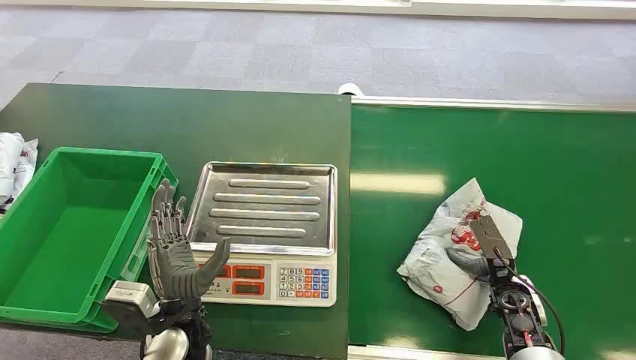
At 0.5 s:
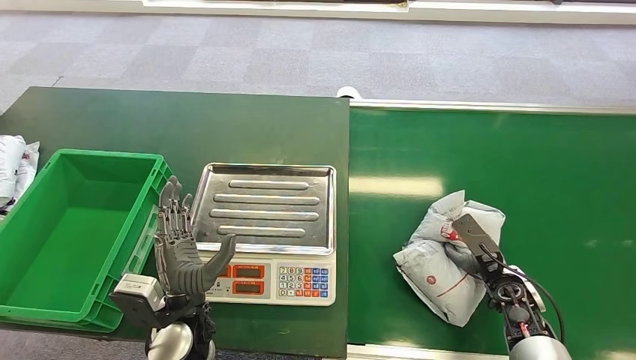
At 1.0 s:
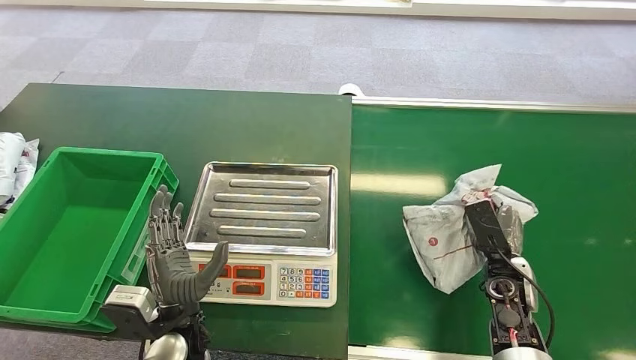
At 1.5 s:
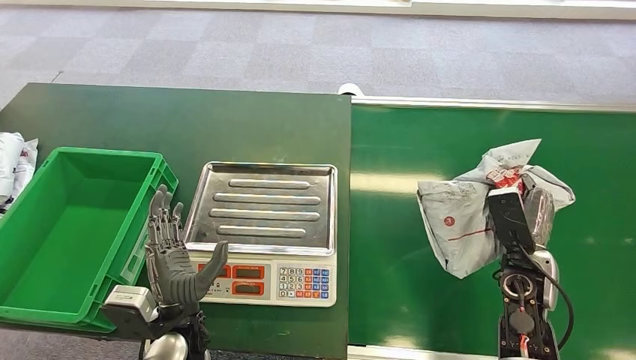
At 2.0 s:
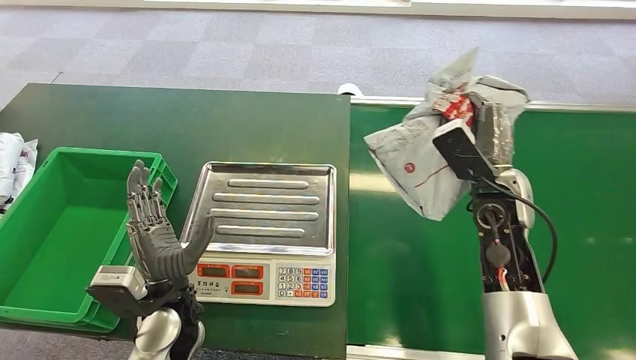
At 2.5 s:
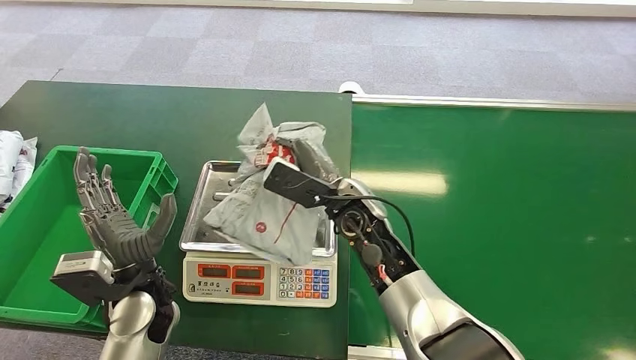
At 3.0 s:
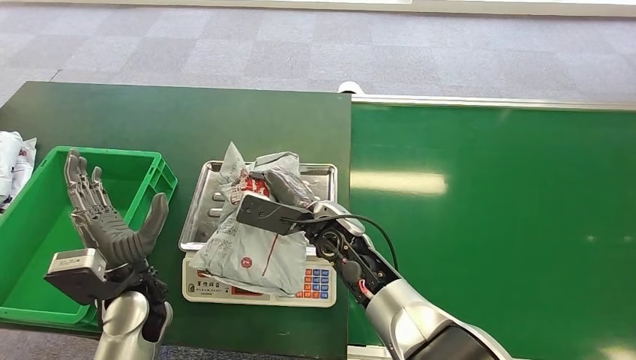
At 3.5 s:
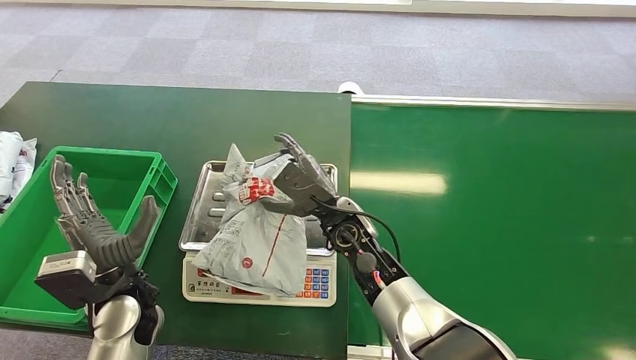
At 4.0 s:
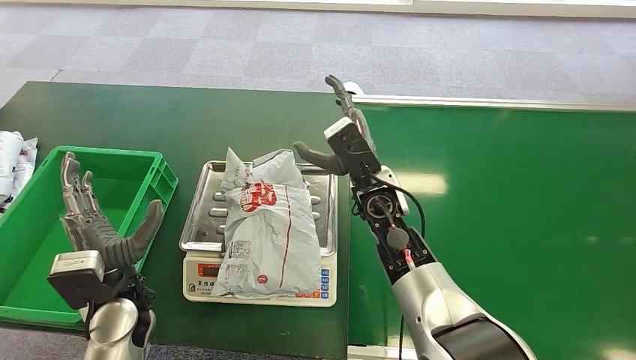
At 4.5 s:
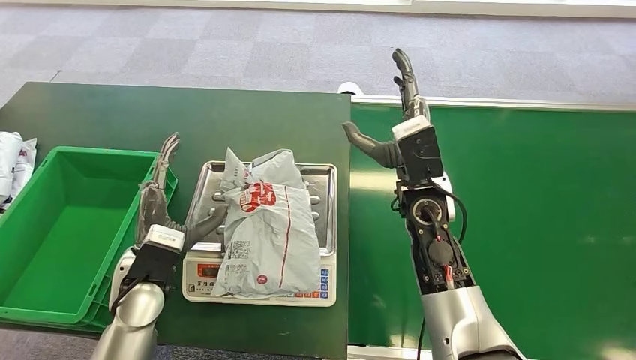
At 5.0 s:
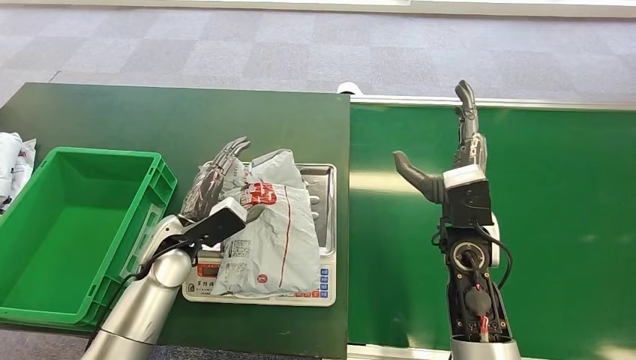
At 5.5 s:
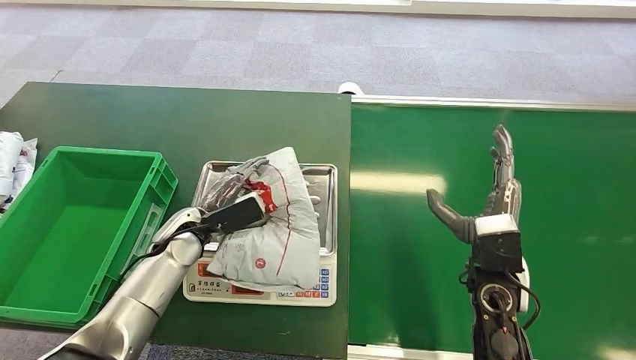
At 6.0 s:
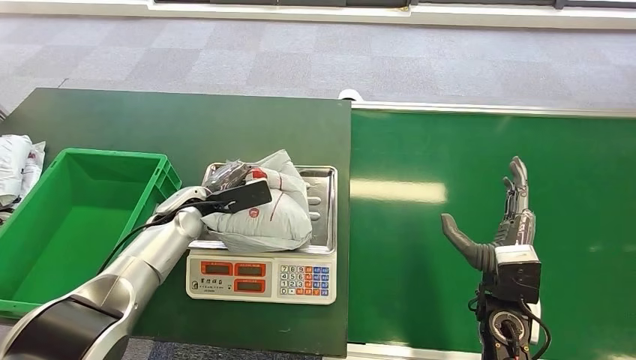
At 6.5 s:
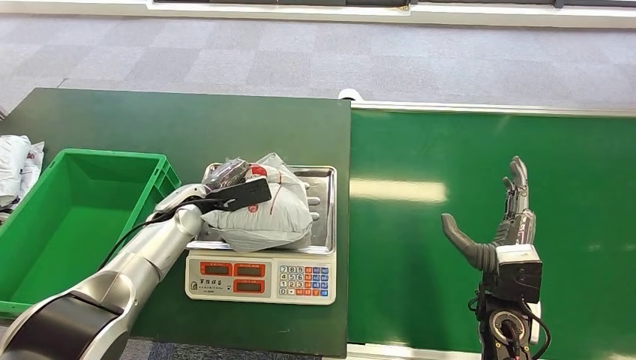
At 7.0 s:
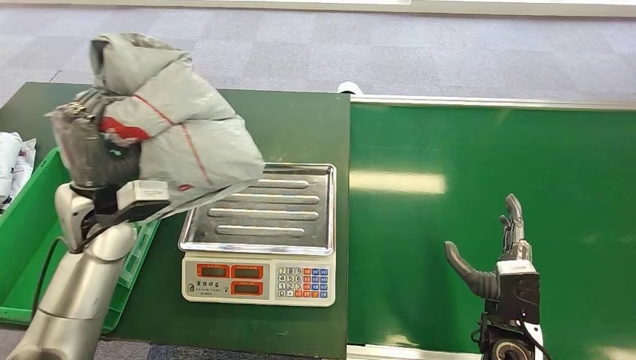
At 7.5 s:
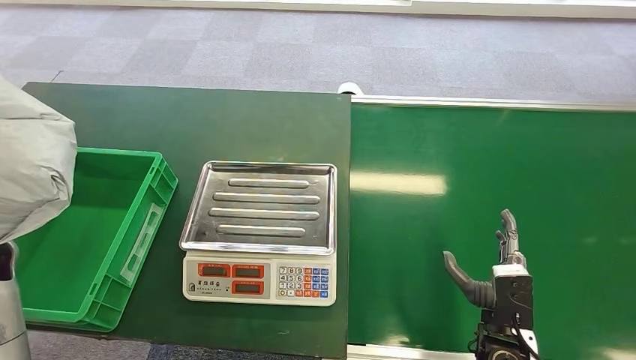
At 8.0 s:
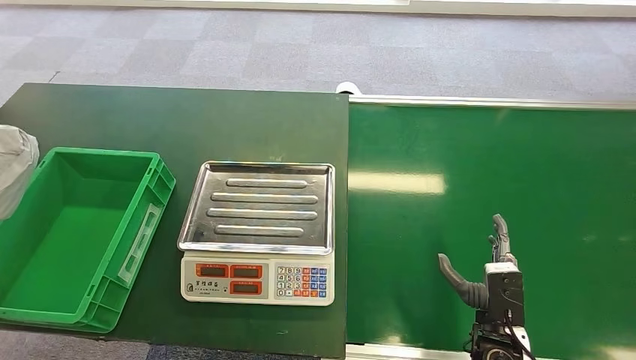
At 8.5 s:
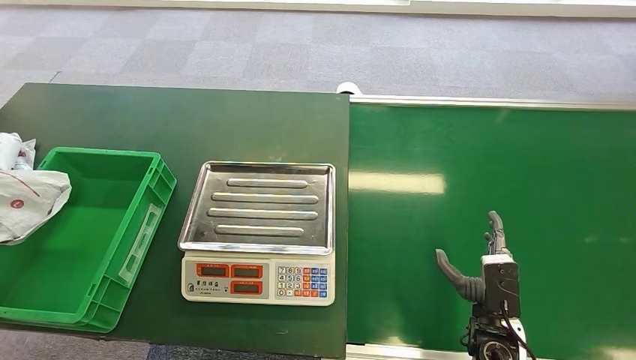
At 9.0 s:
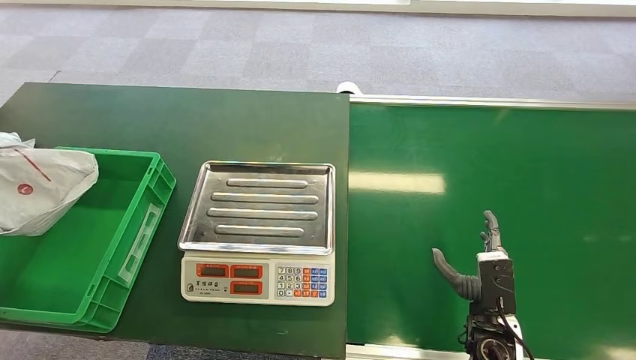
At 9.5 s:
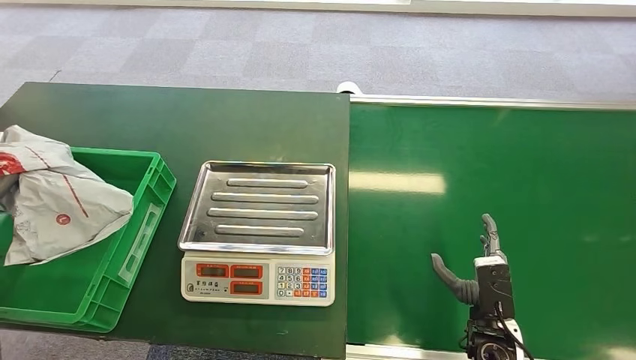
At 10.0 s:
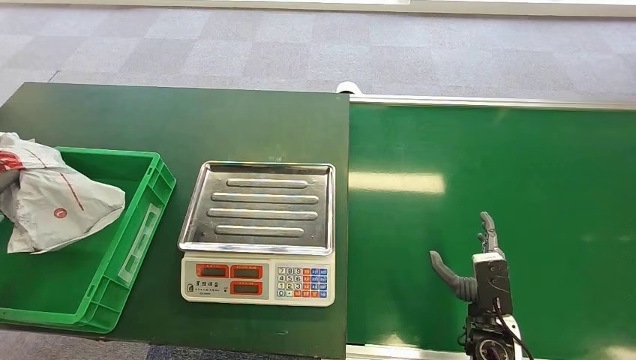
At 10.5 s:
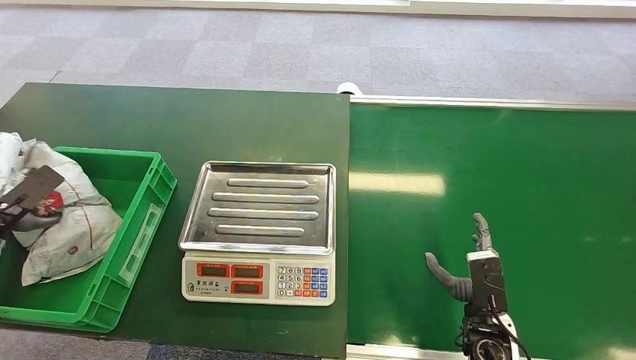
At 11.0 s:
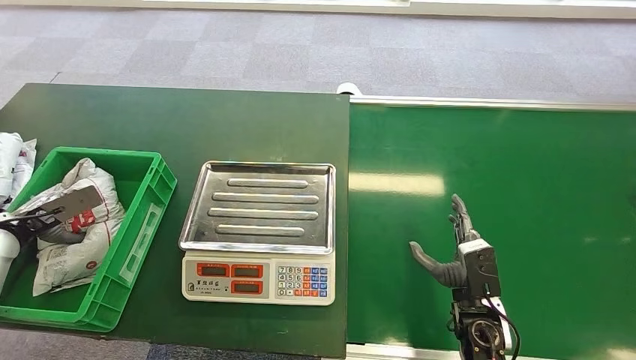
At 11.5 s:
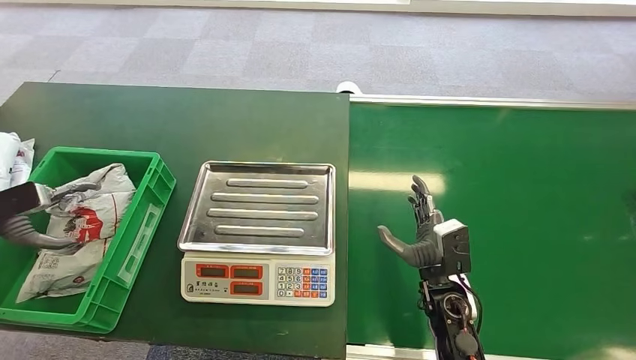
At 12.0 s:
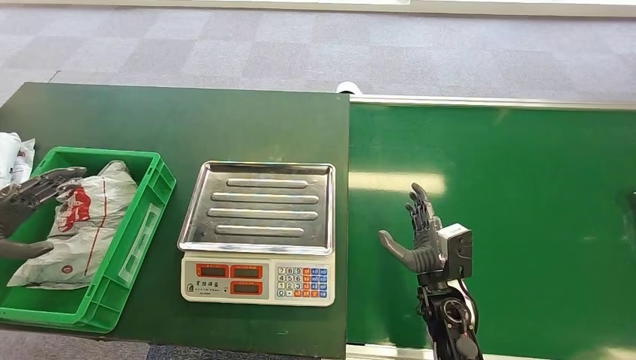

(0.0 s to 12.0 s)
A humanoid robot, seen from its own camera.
Step, 0.0 s - 1.5 s: Pick up the package from the conveyor belt.
Step, 2.5 s - 4.0 s: Place the package onto the inbound machine.
Step, 6.0 s - 7.0 s: Pick up the package from the inbound machine.
Step, 8.0 s - 12.0 s: Place the package into the parcel locker.
8.0 s - 10.0 s: The left hand reaches approximately 5 cm to the left, then returns.
10.0 s - 12.0 s: The right hand goes approximately 10 cm to the left and forward.

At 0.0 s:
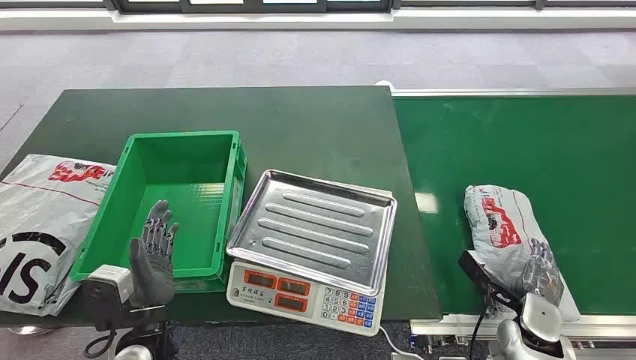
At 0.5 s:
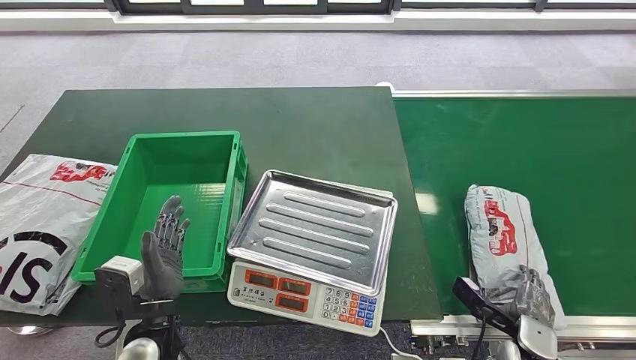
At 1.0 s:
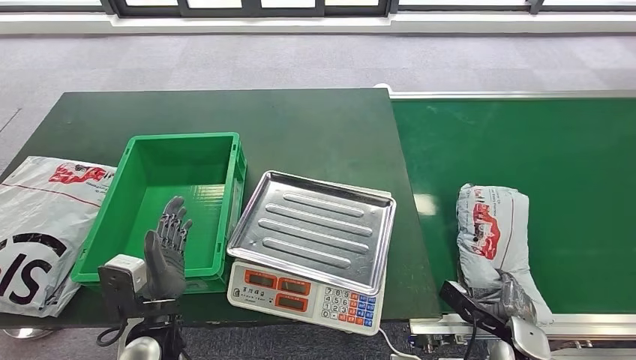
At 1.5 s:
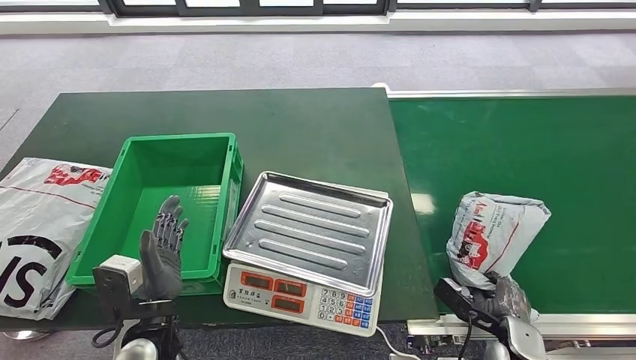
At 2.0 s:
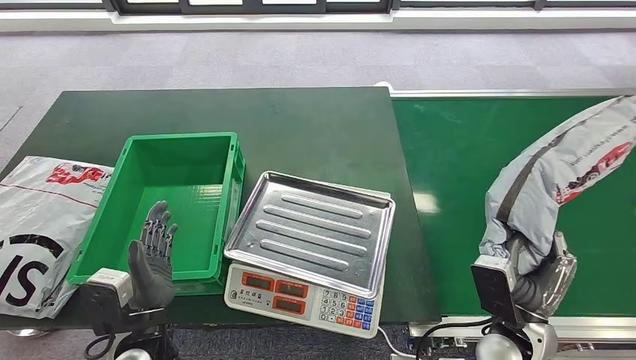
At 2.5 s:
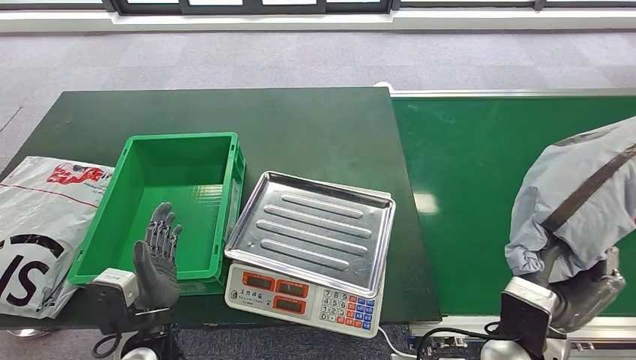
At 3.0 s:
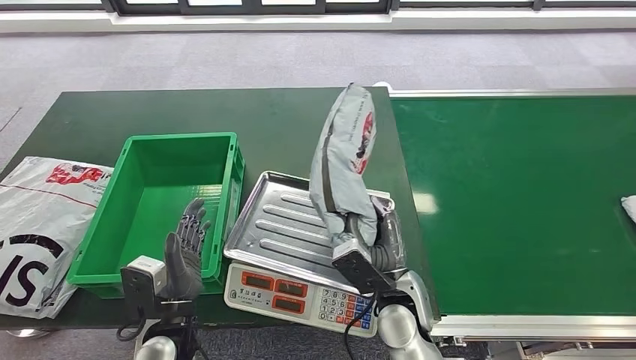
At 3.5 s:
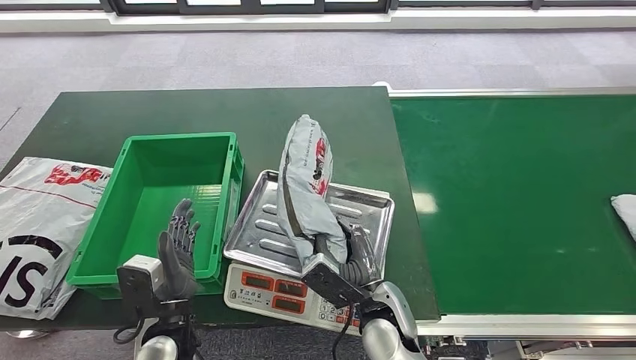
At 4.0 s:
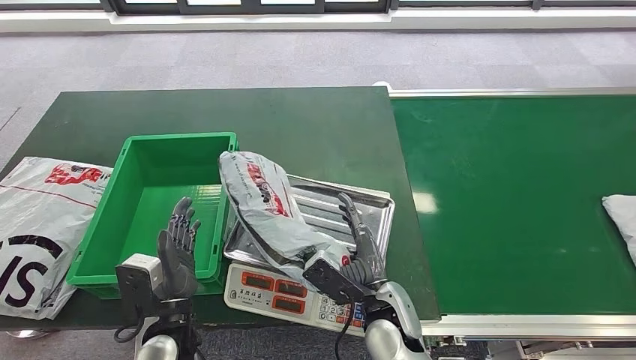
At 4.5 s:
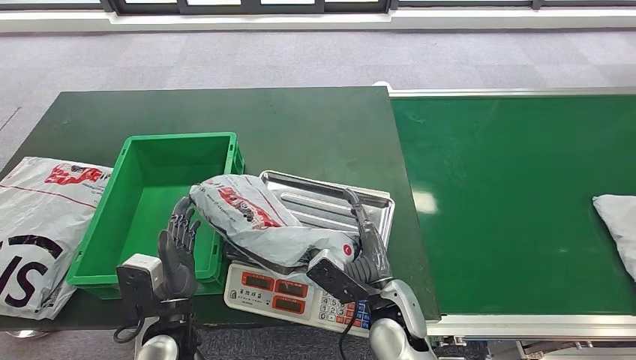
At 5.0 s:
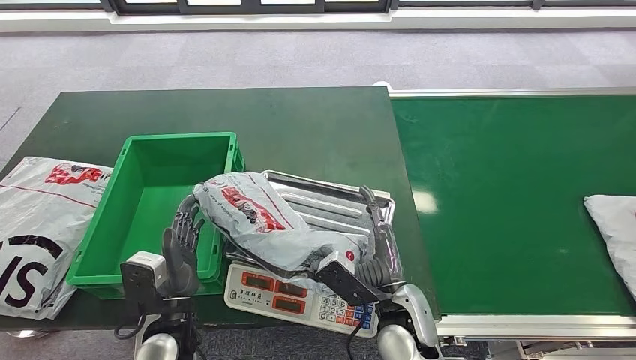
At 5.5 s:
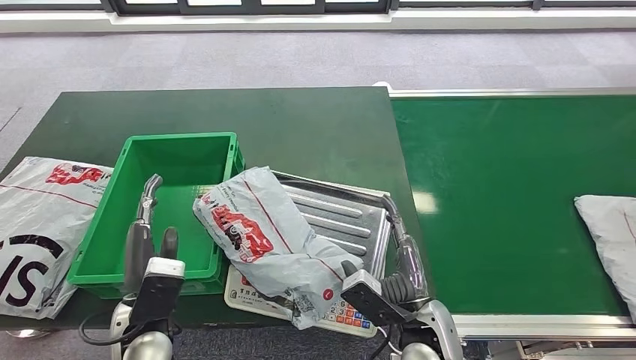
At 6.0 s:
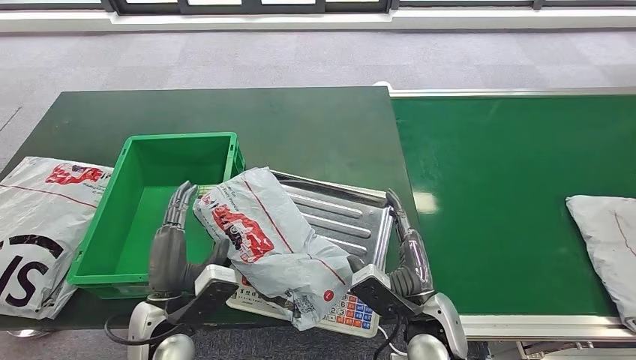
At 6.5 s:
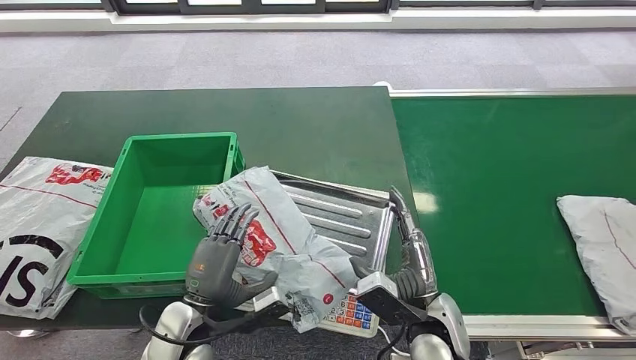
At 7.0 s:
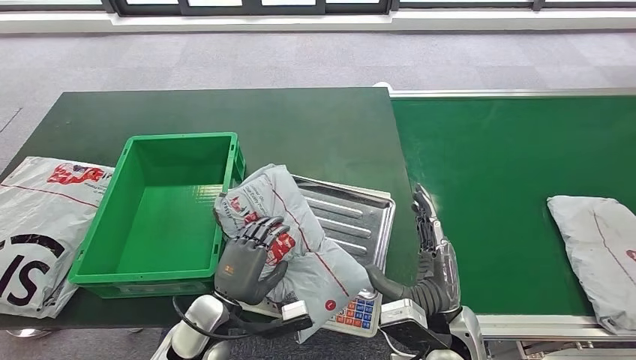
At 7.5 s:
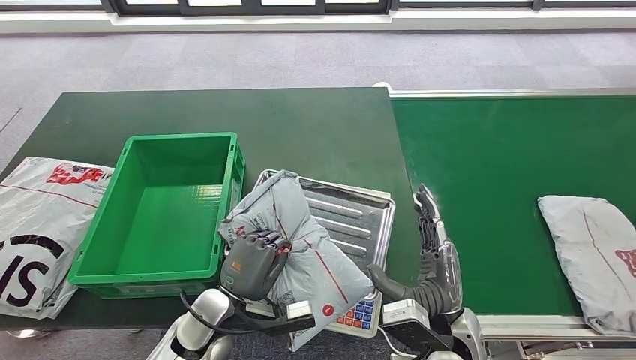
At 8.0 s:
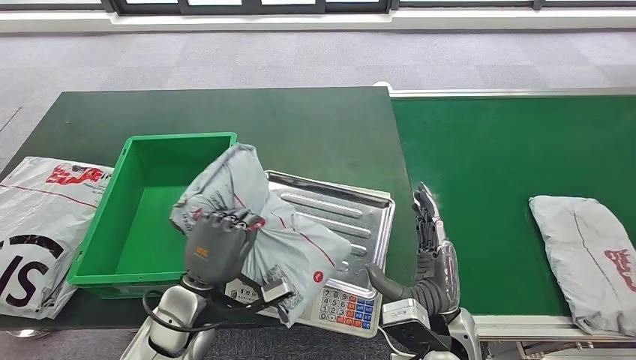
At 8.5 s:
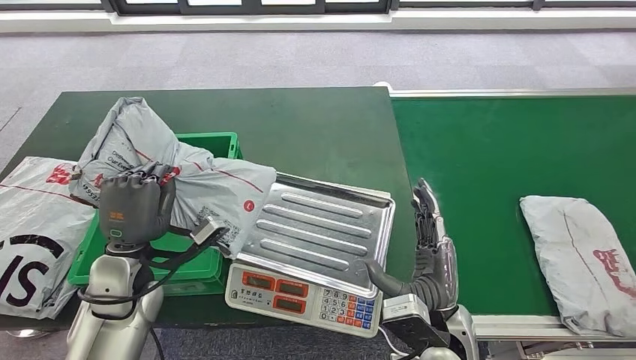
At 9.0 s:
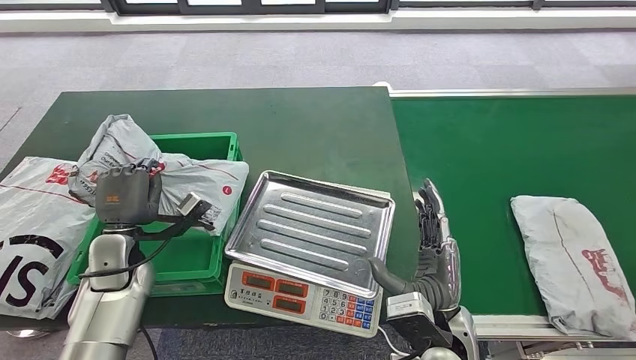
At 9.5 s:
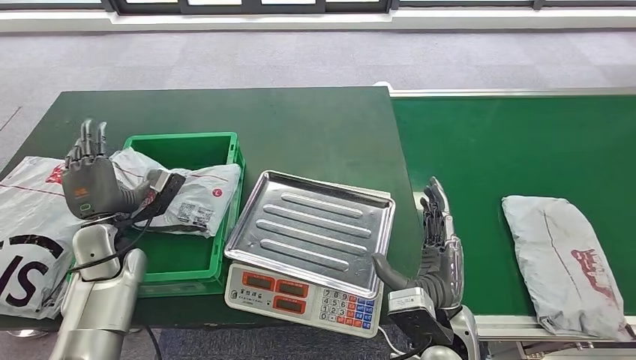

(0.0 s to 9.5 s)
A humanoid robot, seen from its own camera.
Step, 0.0 s - 2.0 s: Pick up the package from the conveyor belt.
Step, 2.5 s - 5.0 s: Place the package onto the inbound machine.
Step, 5.5 s - 8.0 s: Pick up the package from the inbound machine.
Step, 8.5 s - 9.0 s: Place the package into the parcel locker.
4.0 s - 5.5 s: The right hand shifts some 5 cm to the right.
5.5 s - 7.5 s: The left hand is displaced downward and to the right by some 10 cm.
